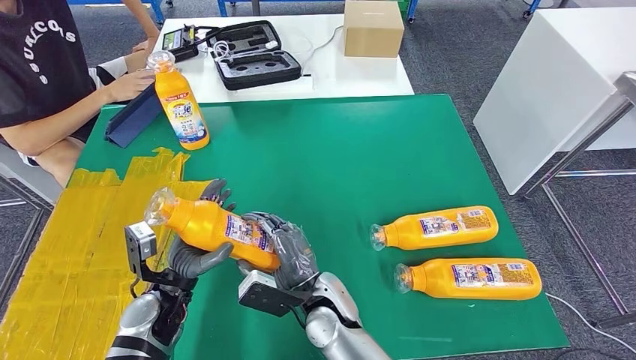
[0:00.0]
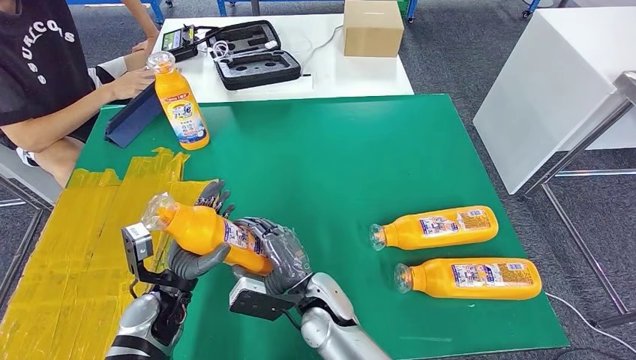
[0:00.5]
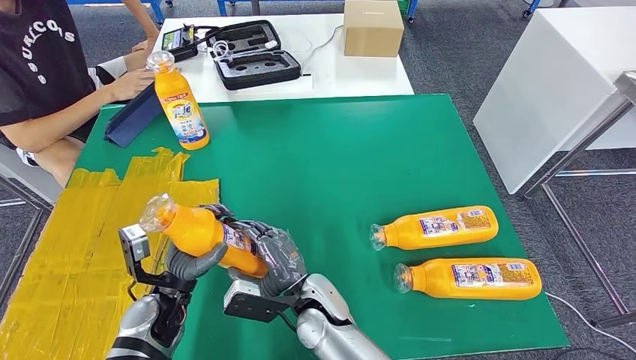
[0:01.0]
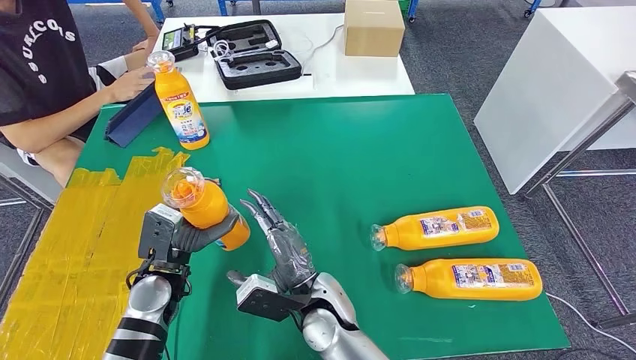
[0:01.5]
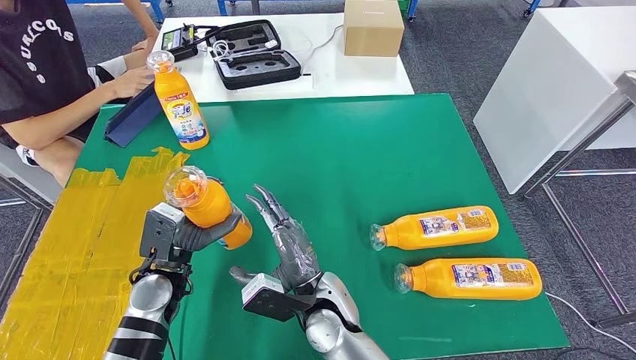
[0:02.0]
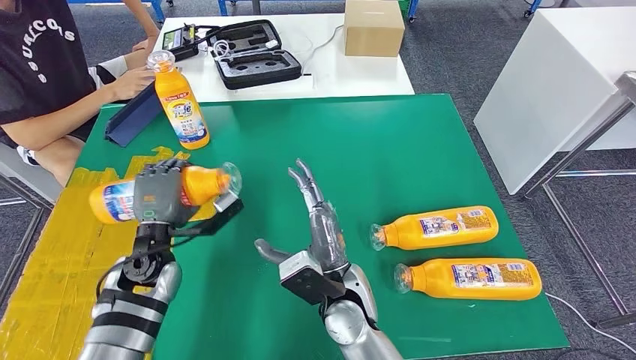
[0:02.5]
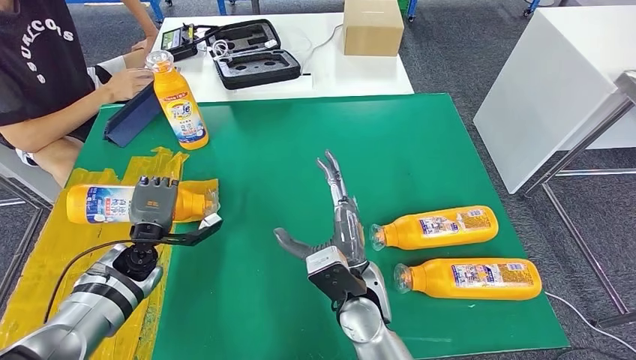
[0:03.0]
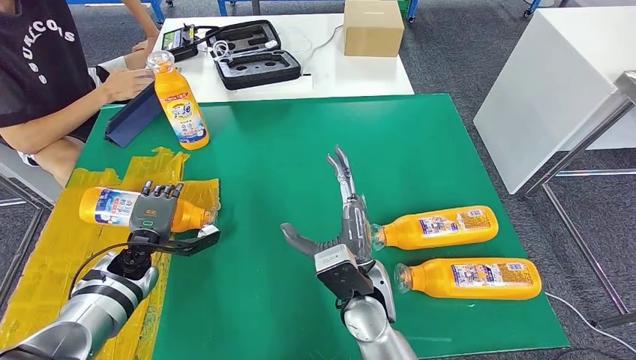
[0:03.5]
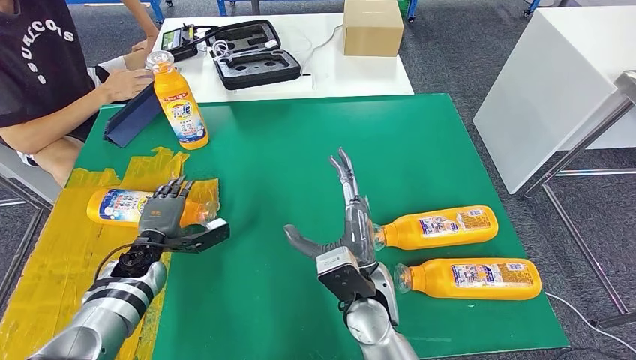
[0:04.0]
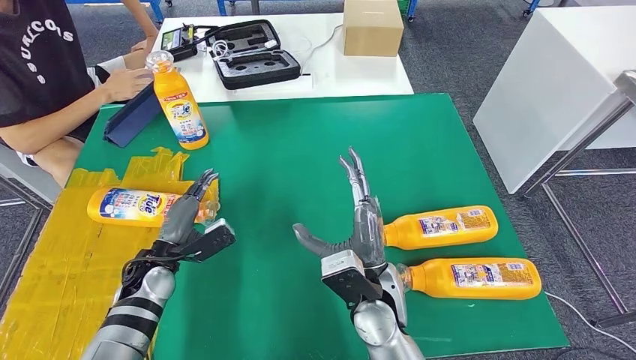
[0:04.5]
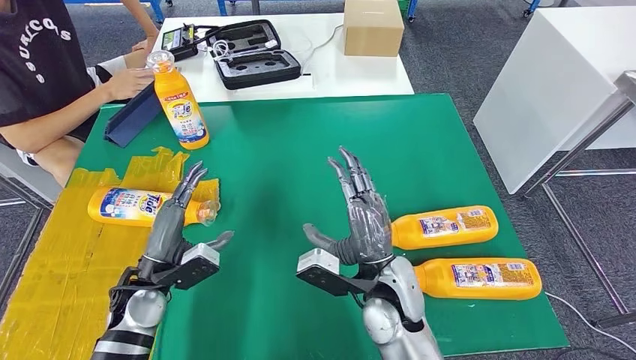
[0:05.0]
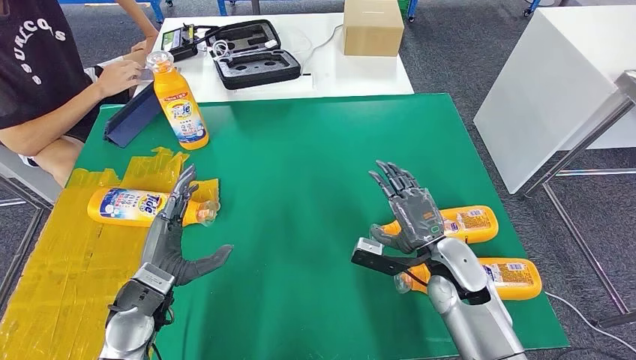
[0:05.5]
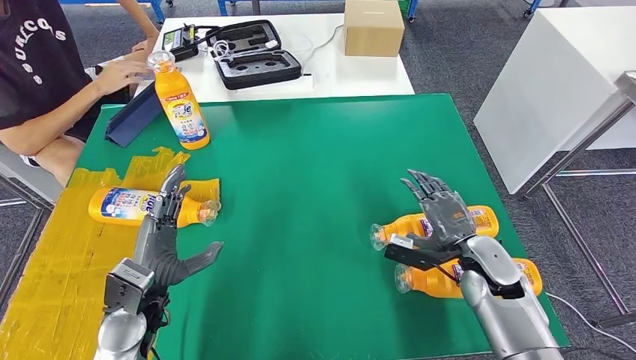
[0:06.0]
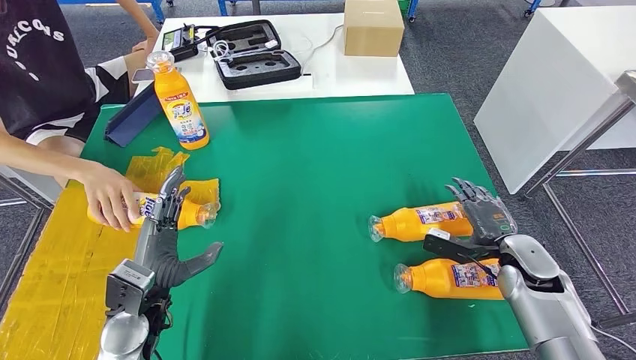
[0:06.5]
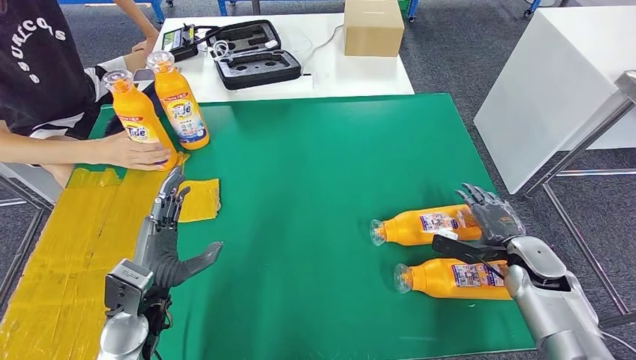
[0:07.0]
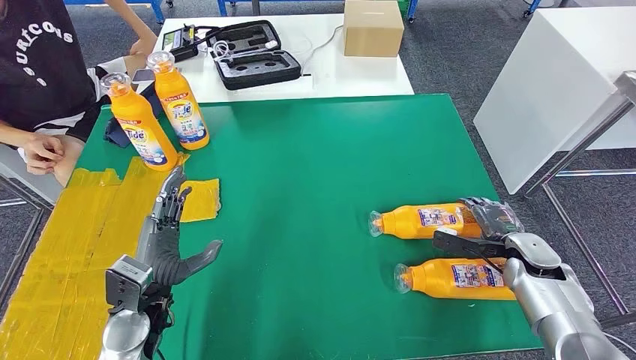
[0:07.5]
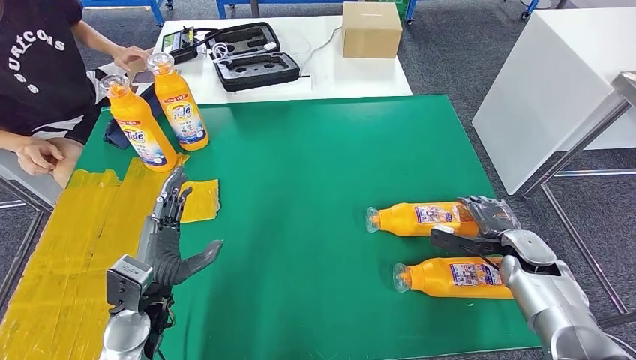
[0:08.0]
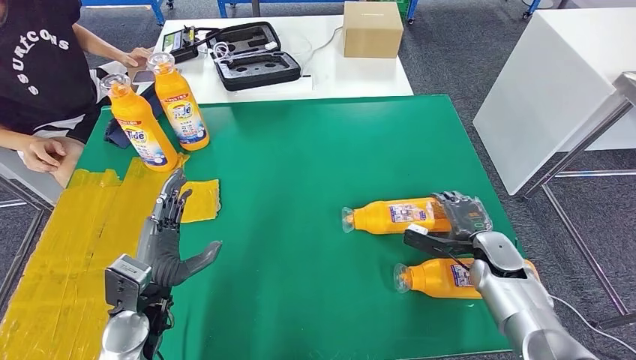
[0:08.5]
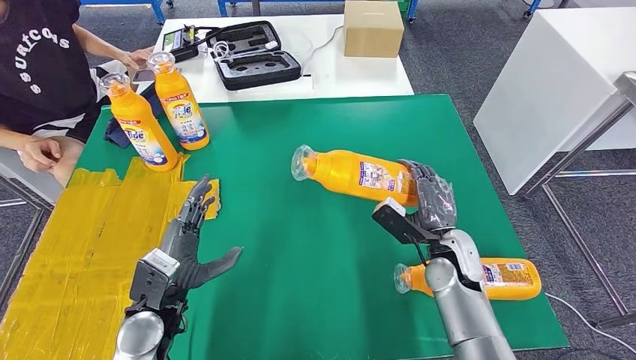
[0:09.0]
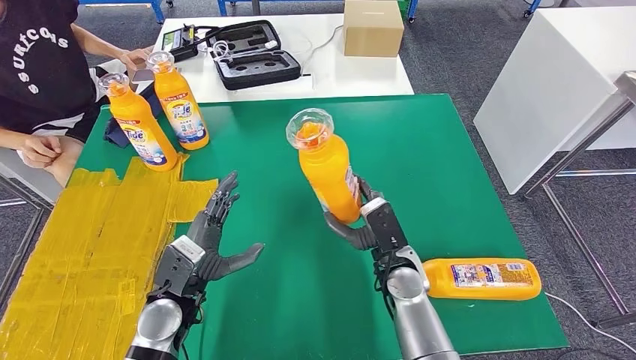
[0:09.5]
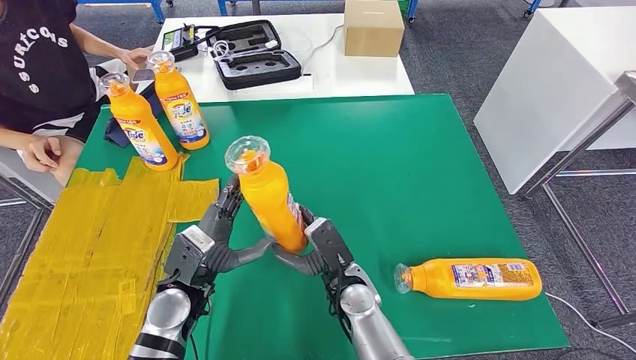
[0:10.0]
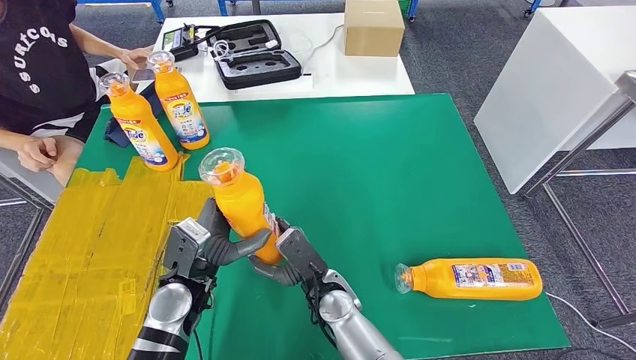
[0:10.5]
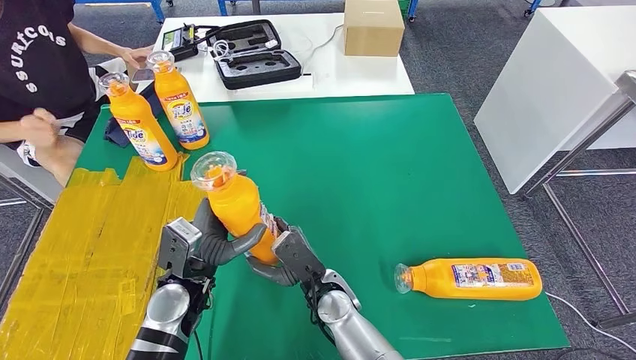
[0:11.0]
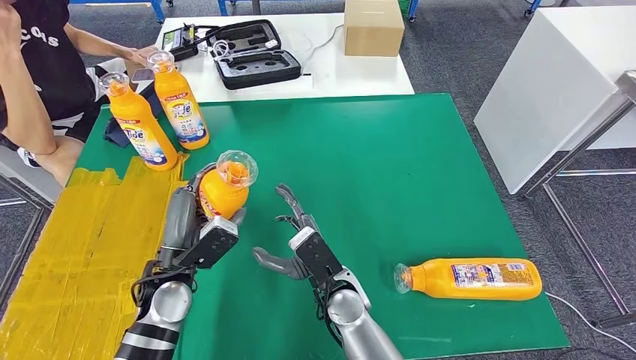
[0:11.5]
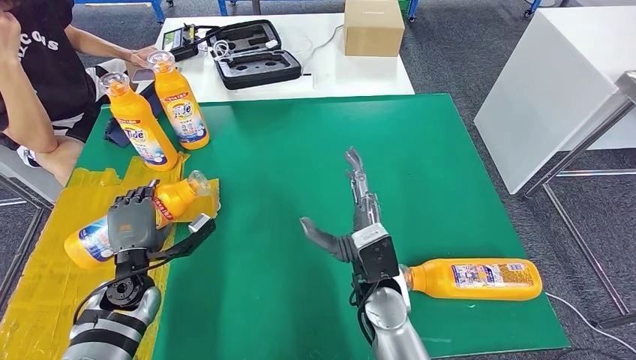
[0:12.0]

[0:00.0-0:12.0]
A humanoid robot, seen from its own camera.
Step, 0:00.5 to 0:05.5: Flip the fast-moving consumer goods bottle to the front side.
Step, 0:08.0 to 0:11.5: Pick up the fast-moving consumer goods bottle from the table.
0:02.0 to 0:04.0: The left hand shifts roughly 10 cm to the left, forward and downward; the right hand shifts roughly 5 cm to the right.
0:04.0 to 0:06.0: The right hand moves to the right, roughly 20 cm; the left hand moves backward, upward and to the right, about 15 cm.
0:10.0 to 0:12.0: The left hand heads to the left, covering approximately 10 cm. Meanwhile the right hand is displaced upward by roughly 5 cm.

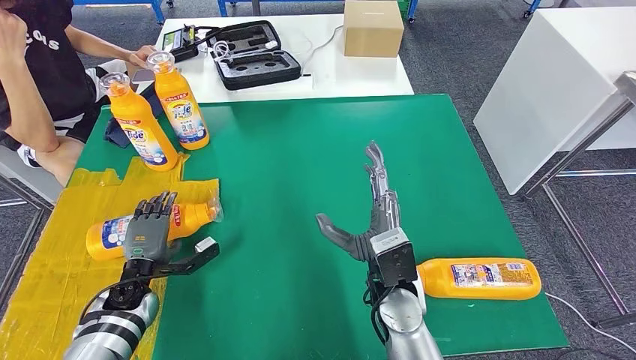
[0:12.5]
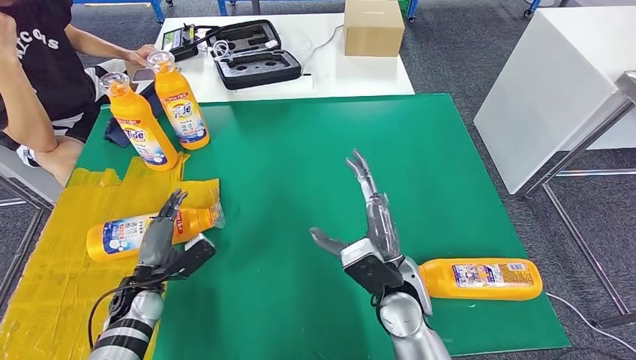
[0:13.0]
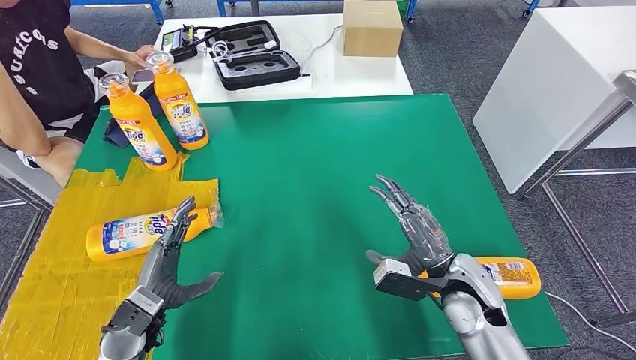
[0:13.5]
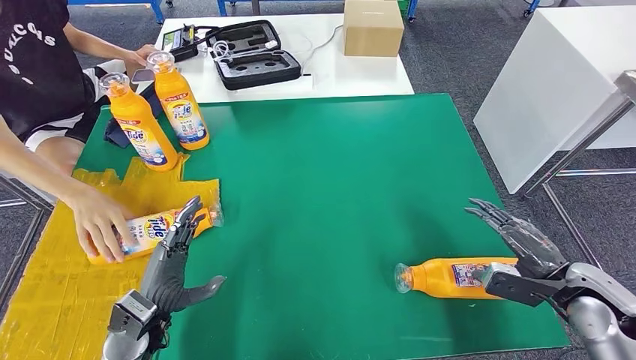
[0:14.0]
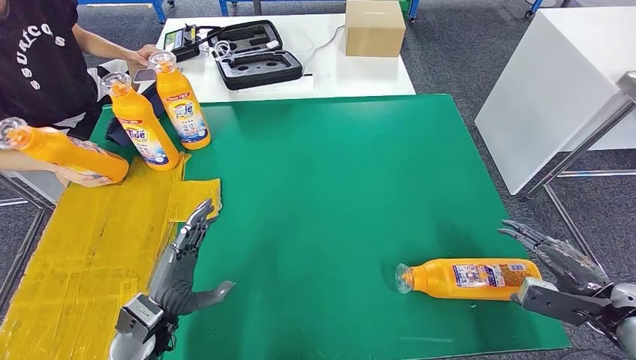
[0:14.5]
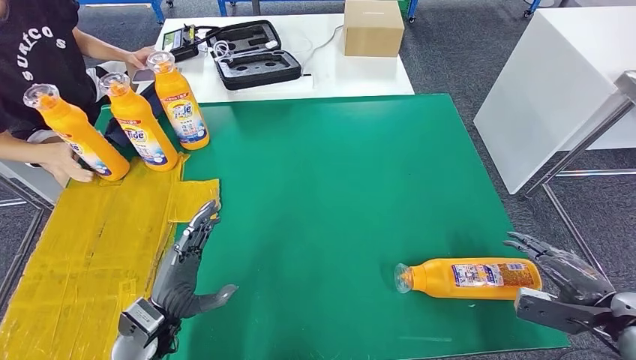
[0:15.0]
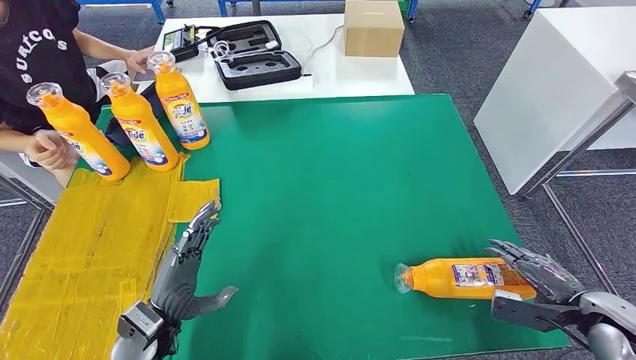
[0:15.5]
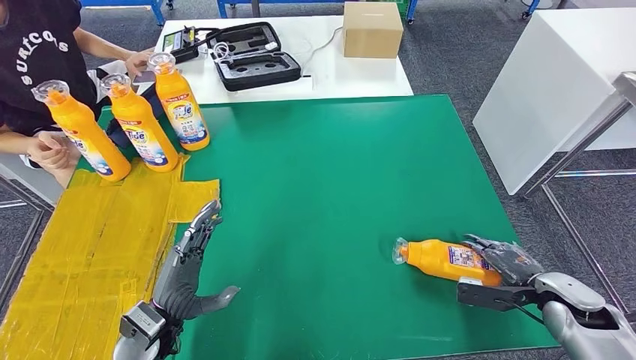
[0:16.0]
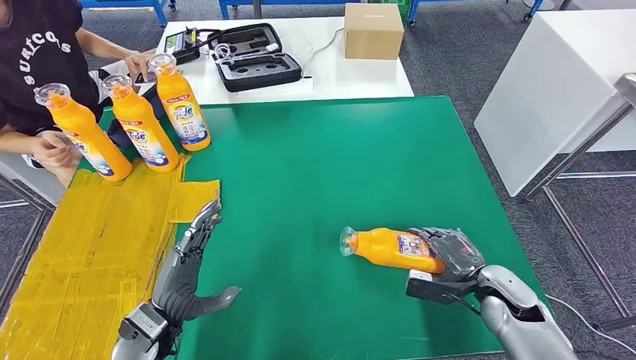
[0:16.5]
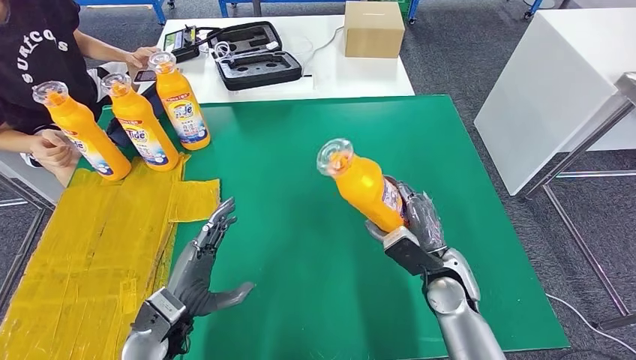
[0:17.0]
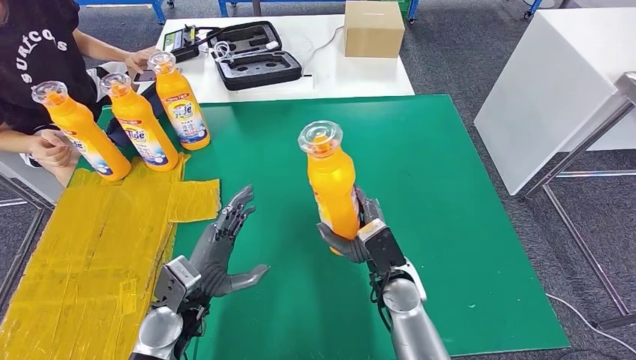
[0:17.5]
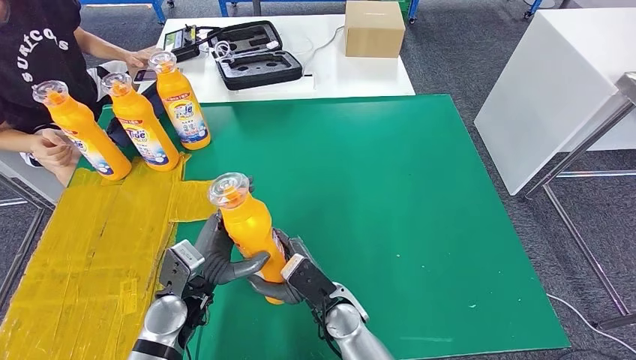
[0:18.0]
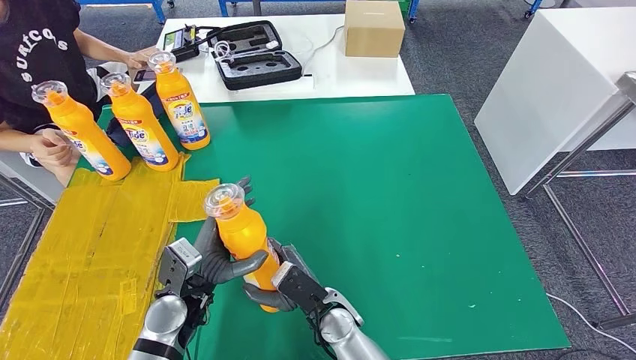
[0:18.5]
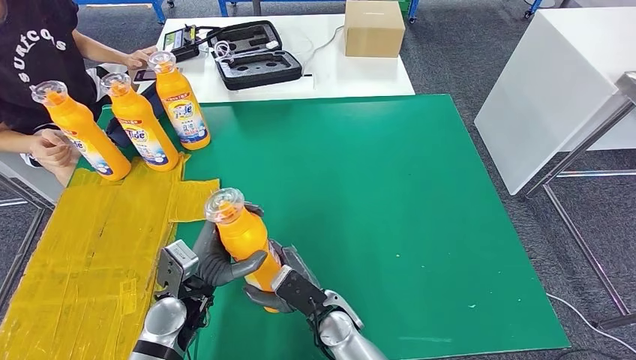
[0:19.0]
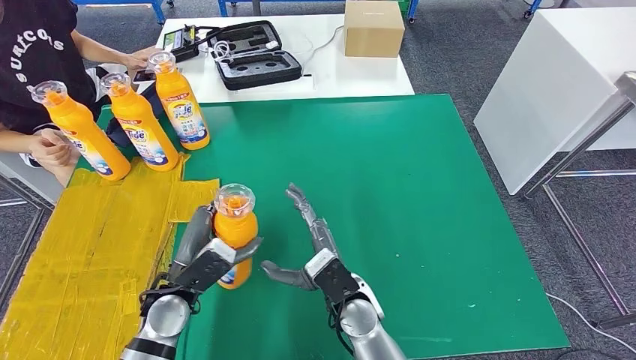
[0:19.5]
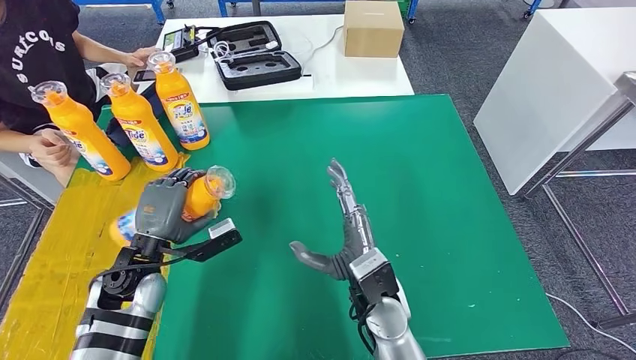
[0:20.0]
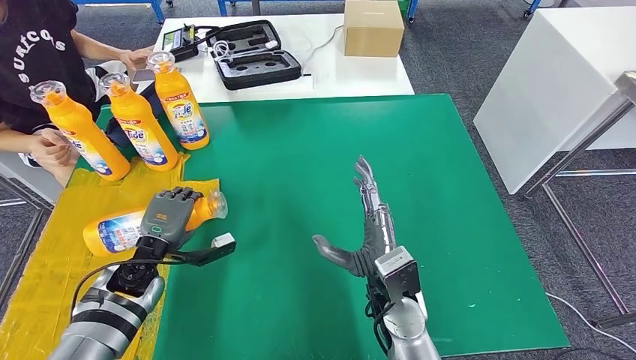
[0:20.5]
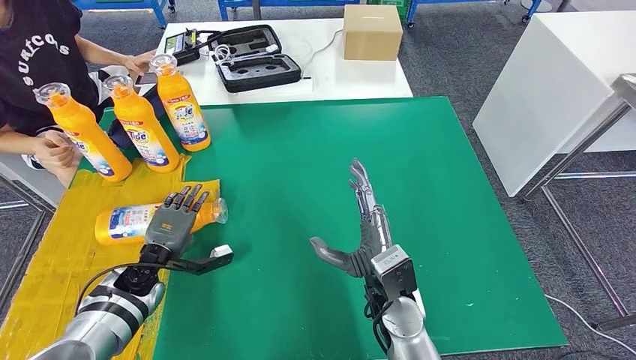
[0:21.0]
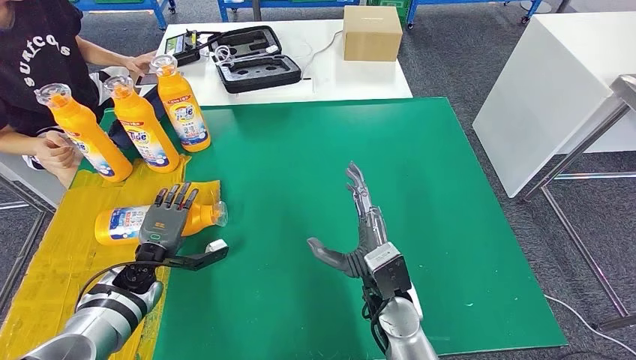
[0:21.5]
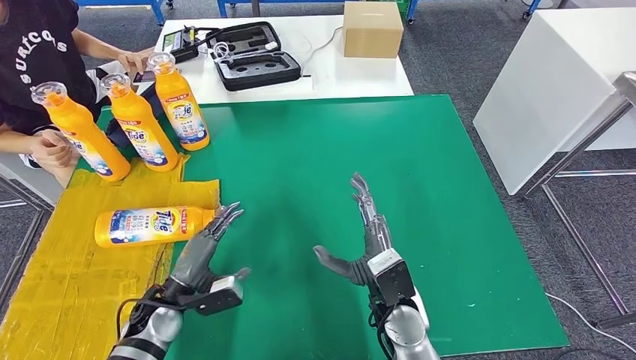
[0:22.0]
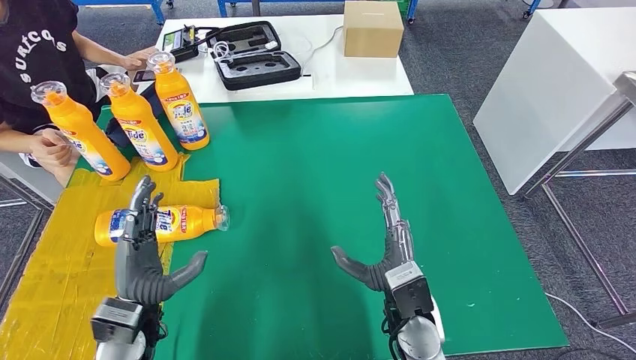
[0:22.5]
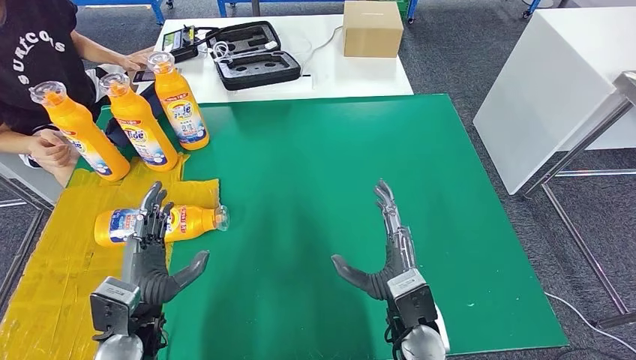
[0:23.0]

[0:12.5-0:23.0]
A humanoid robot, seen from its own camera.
Step, 0:16.5 to 0:19.5: Pick up the fast-moving consumer goods bottle from the table.
Step, 0:20.0 to 0:23.0: Flip the fast-moving consumer goods bottle to the front side.
